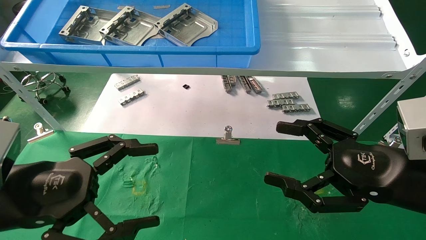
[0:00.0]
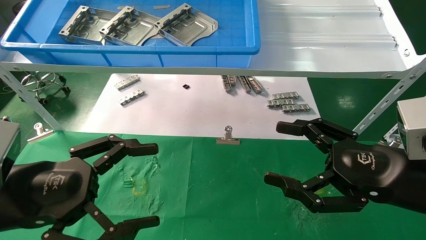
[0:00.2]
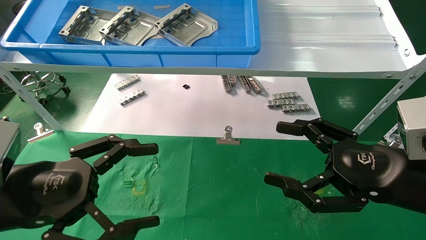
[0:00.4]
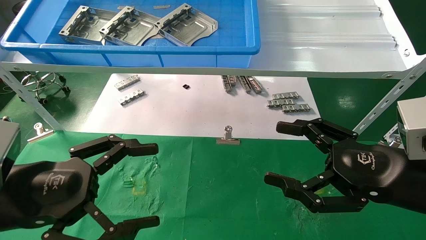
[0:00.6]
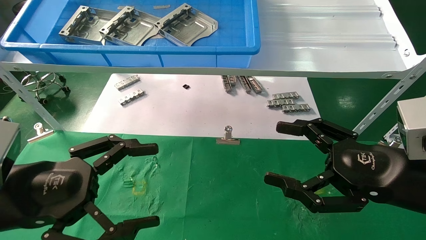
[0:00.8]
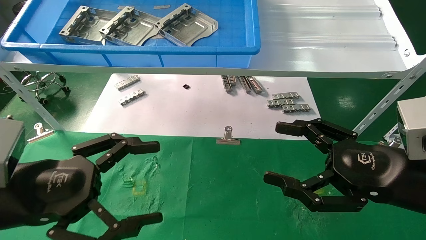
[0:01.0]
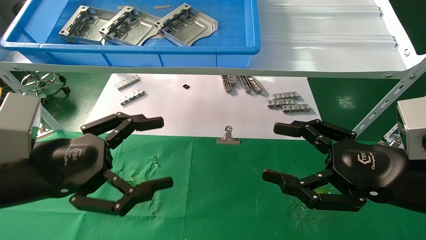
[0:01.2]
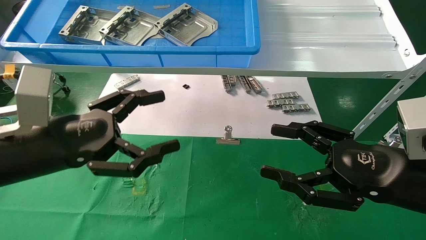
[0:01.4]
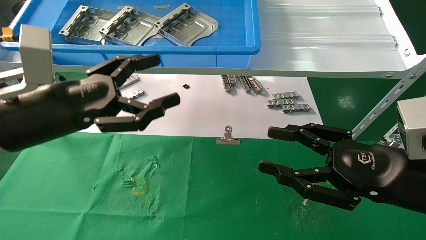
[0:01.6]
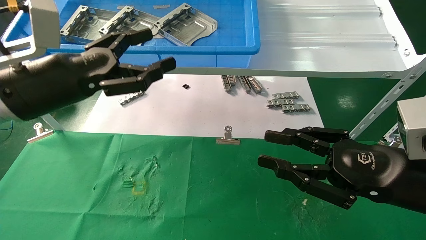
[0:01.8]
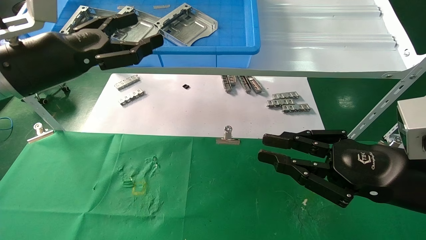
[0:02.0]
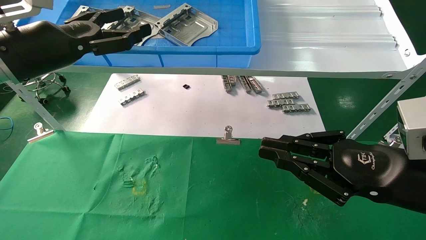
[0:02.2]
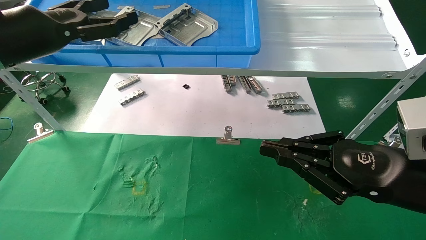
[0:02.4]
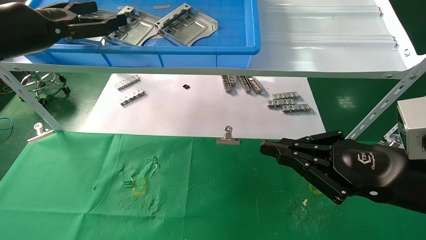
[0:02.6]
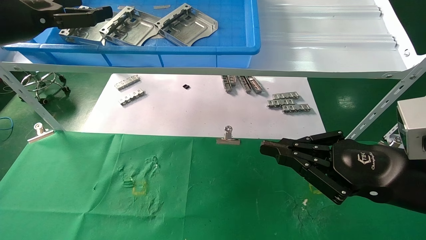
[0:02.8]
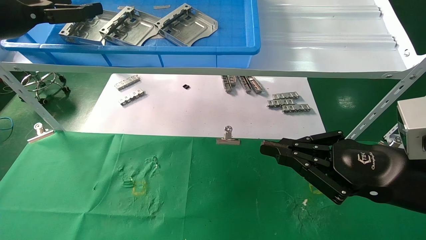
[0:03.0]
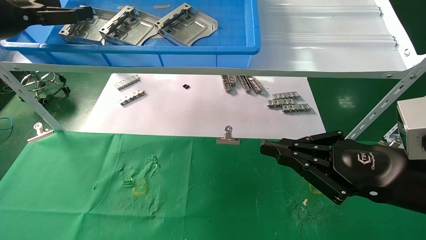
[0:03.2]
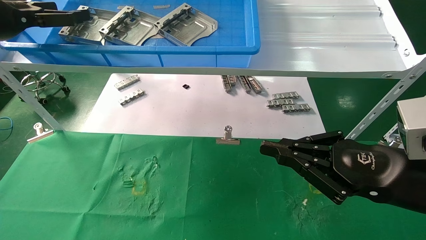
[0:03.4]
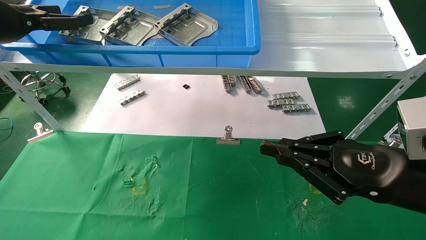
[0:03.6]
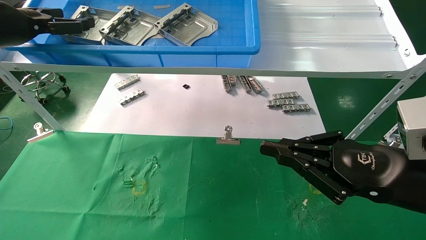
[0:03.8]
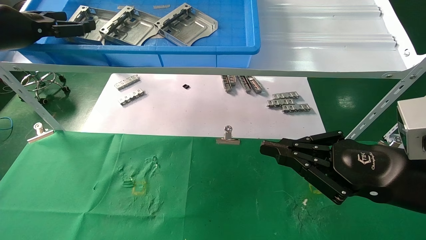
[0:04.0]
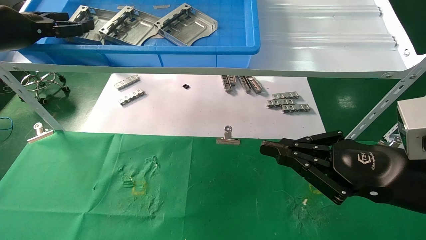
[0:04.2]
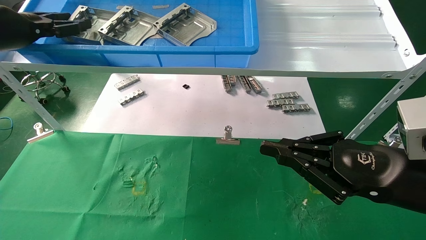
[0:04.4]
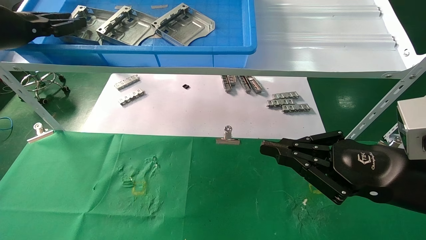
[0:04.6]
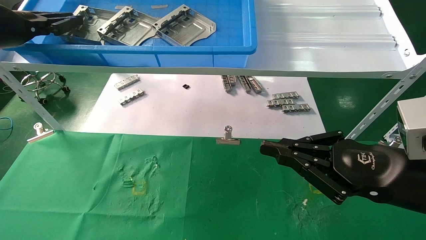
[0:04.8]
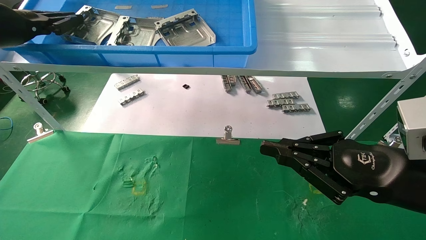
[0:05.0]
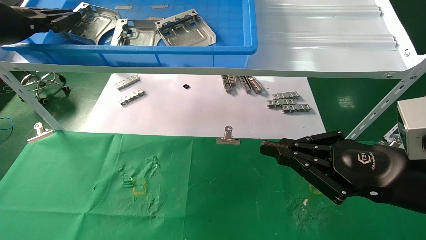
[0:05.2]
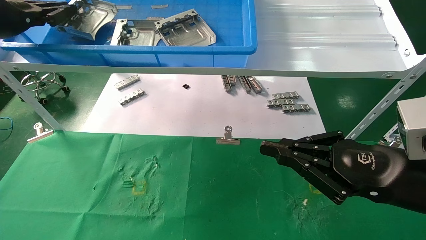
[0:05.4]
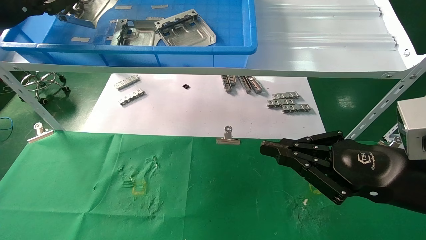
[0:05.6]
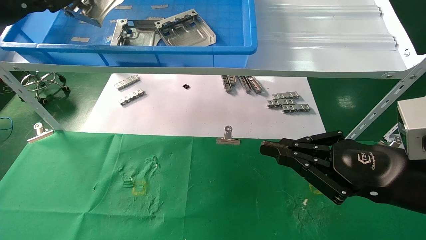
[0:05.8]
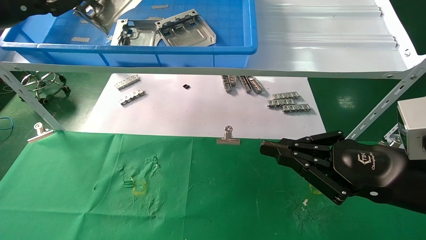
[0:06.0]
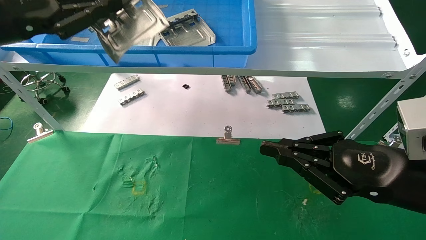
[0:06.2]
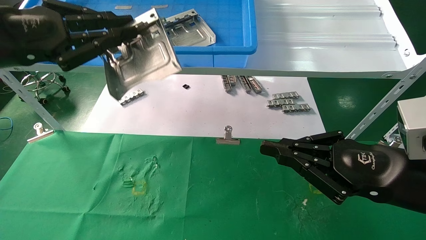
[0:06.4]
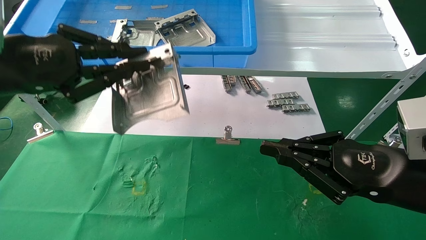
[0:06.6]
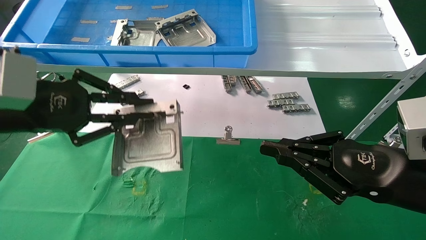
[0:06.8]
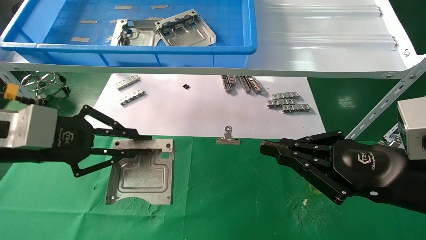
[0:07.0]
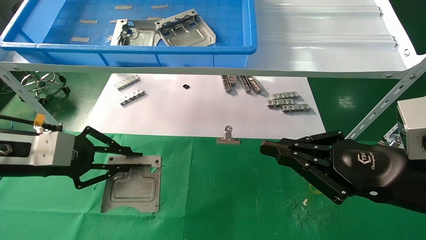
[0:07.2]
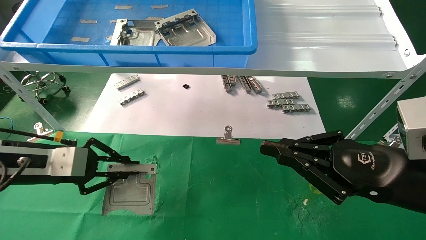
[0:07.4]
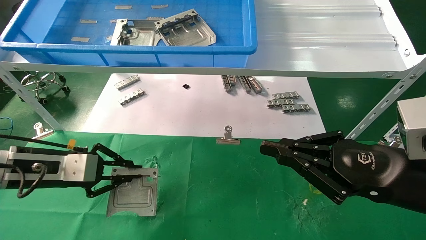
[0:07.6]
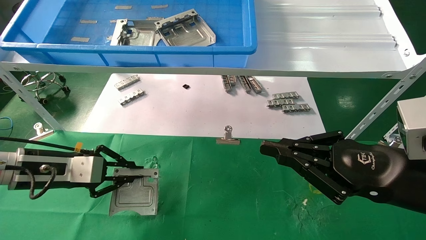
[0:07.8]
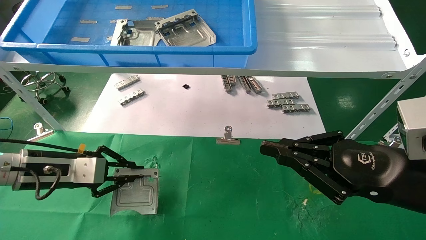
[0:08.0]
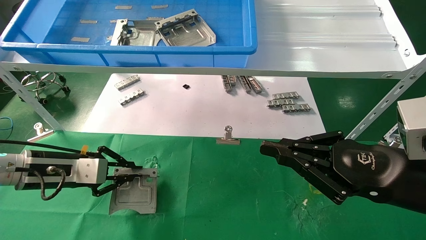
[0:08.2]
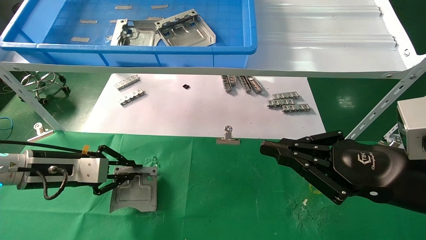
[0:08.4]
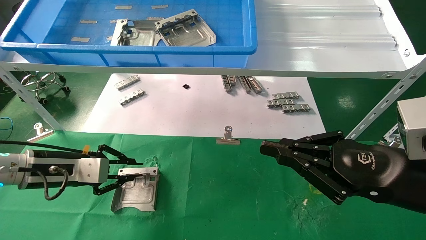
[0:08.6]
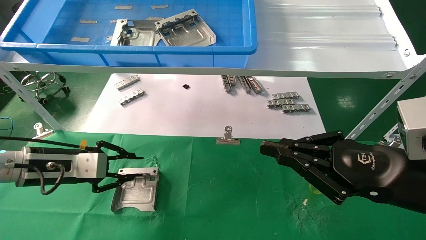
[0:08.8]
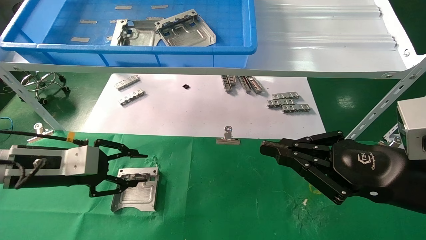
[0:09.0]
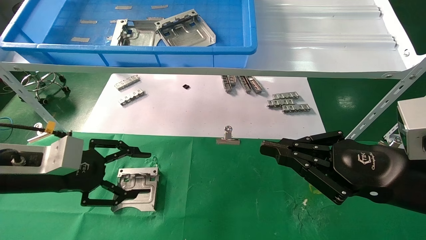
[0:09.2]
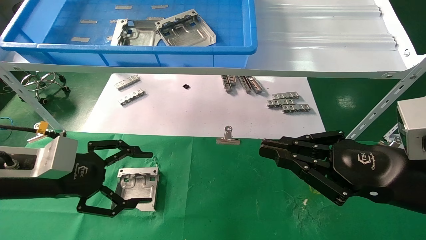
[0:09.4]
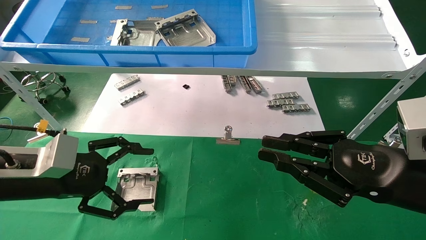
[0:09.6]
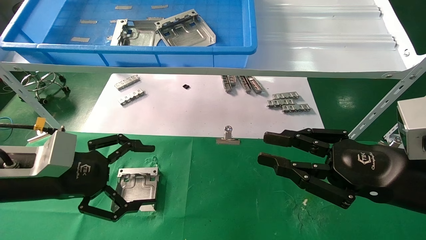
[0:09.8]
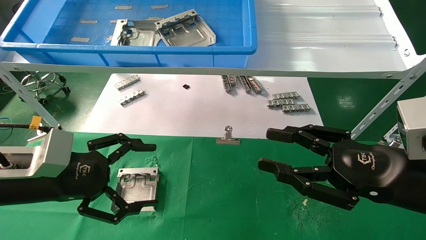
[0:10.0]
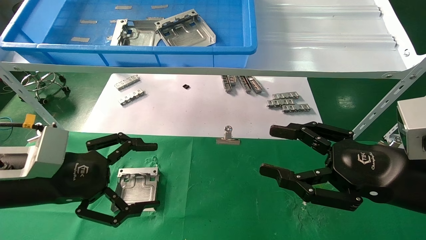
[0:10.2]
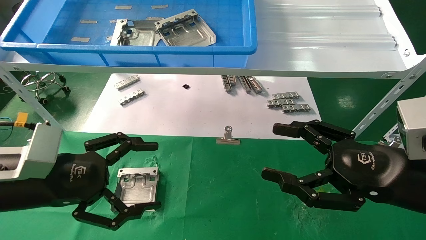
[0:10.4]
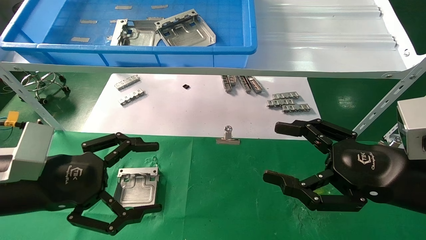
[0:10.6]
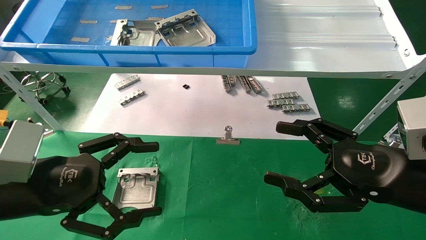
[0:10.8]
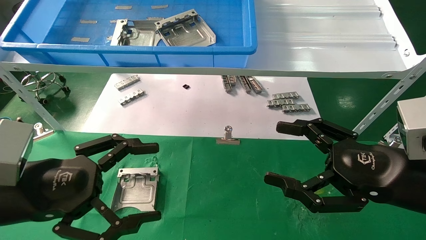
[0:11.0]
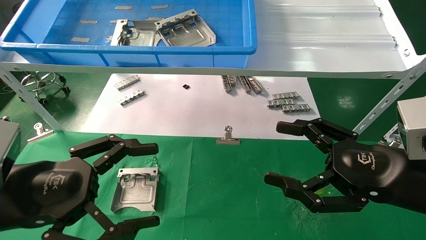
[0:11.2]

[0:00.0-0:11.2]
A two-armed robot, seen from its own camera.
Task of the whole recording: use the mechanical arm to pick up the parts and place them on the table.
Step, 0:01.2 to 0:05.0: Pick up the hard drive bracket from the feeding area.
Step, 0:05.2 to 0:08.8: Place the hard drive bracket into the box.
0:00.0 to 0:01.6: The left gripper is displaced forward and upward by some 10 cm.
0:01.6 to 0:03.2: The left gripper travels upward, to the left and forward by roughly 20 cm, while the right gripper closes up.
0:03.2 to 0:04.8: The left gripper closes.
0:04.8 to 0:06.4: The left gripper travels backward and to the right by roughly 15 cm.
0:06.4 to 0:08.0: The left gripper moves downward, some 20 cm.
0:08.0 to 0:09.6: The left gripper is displaced backward by about 5 cm, and opens.
0:09.6 to 0:11.2: The left gripper travels backward by approximately 10 cm. Meanwhile the right gripper opens its fingers.

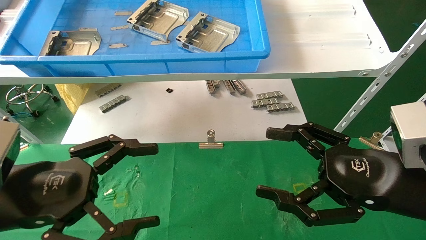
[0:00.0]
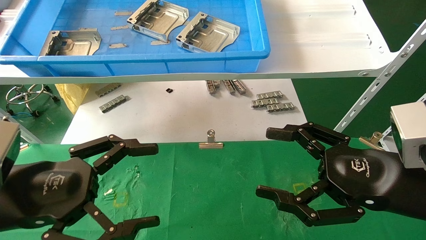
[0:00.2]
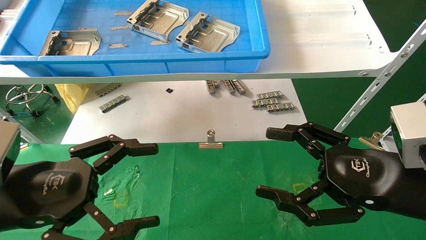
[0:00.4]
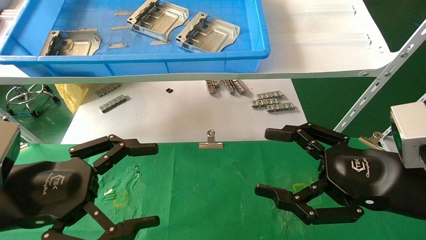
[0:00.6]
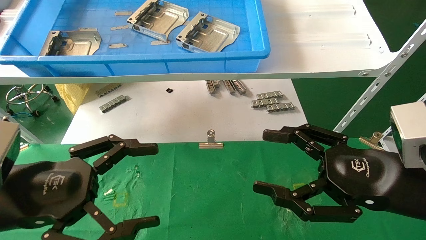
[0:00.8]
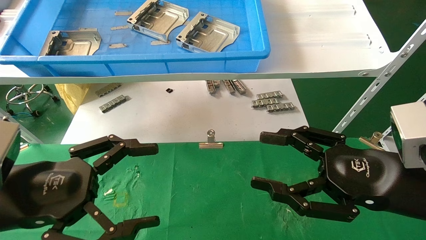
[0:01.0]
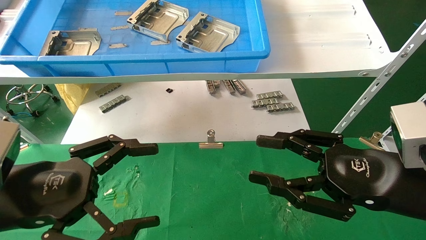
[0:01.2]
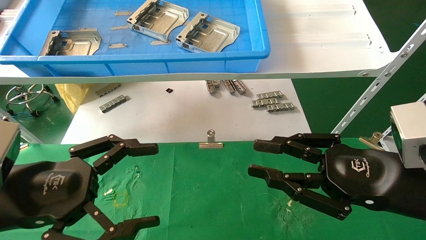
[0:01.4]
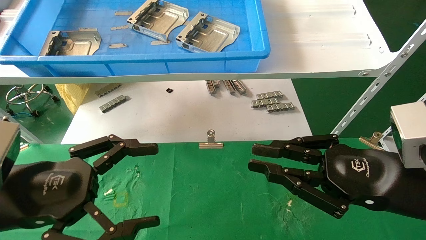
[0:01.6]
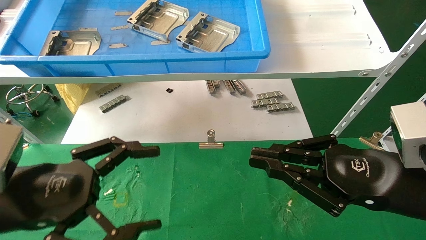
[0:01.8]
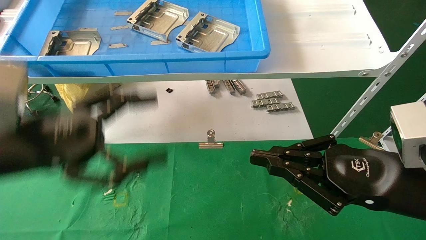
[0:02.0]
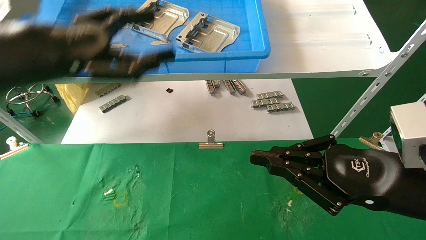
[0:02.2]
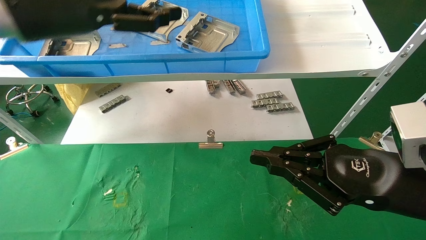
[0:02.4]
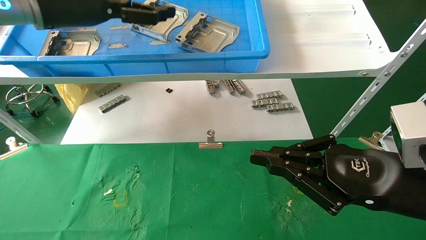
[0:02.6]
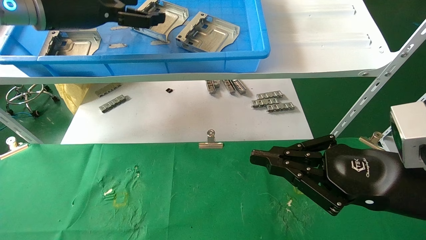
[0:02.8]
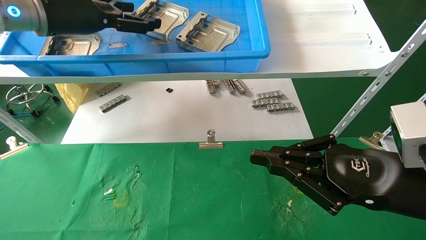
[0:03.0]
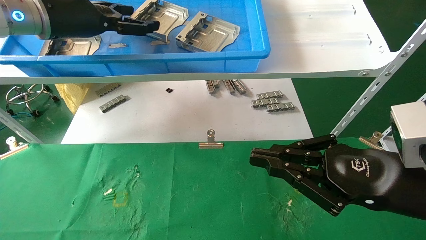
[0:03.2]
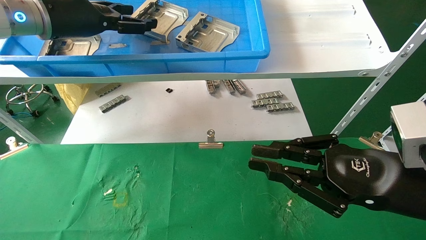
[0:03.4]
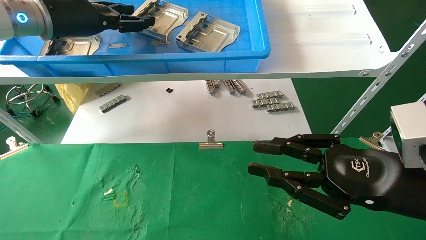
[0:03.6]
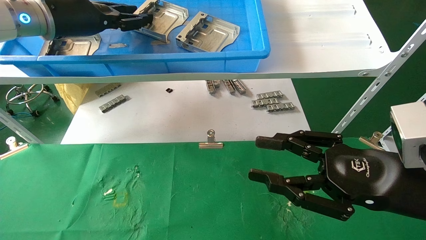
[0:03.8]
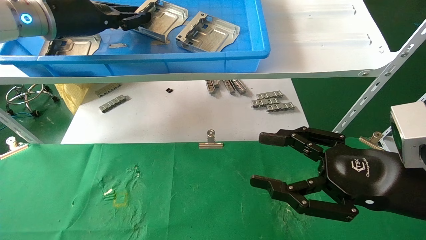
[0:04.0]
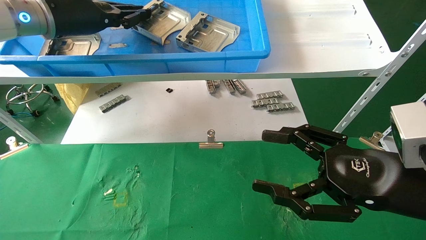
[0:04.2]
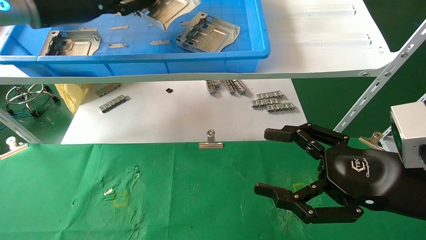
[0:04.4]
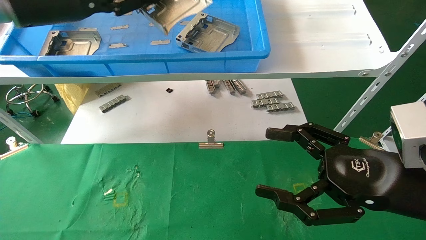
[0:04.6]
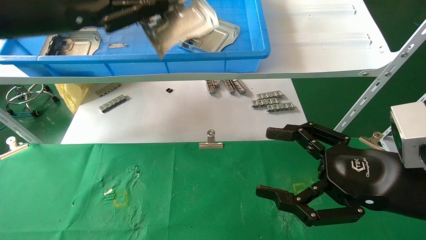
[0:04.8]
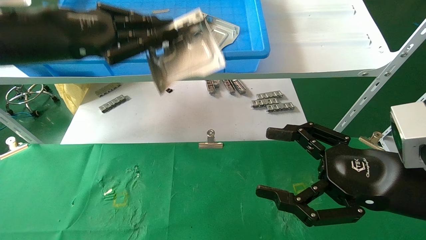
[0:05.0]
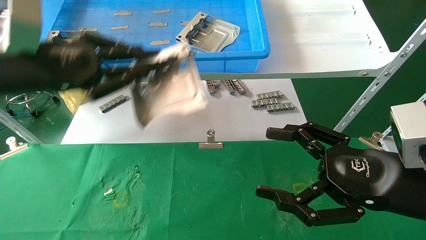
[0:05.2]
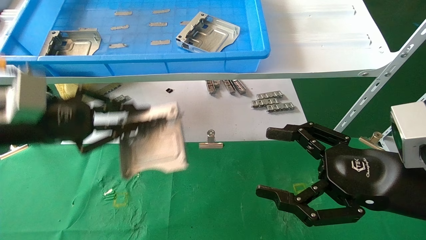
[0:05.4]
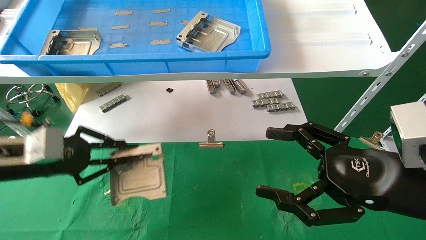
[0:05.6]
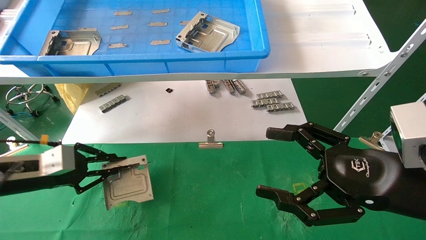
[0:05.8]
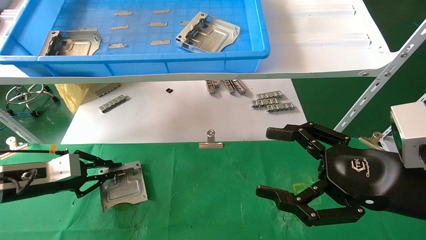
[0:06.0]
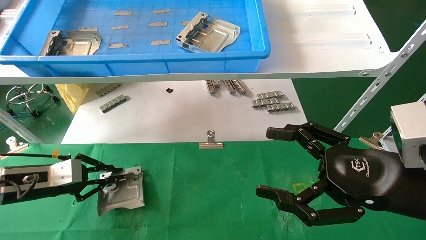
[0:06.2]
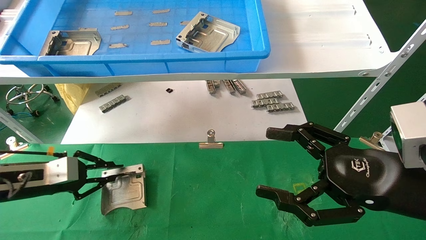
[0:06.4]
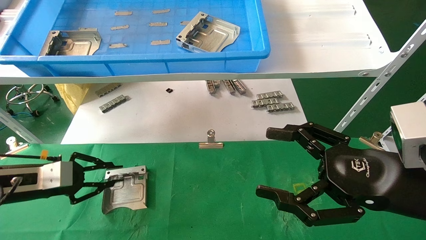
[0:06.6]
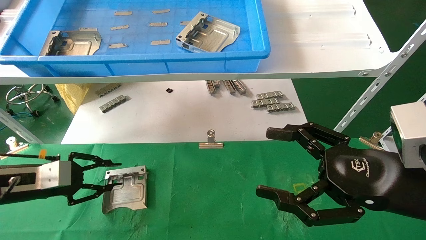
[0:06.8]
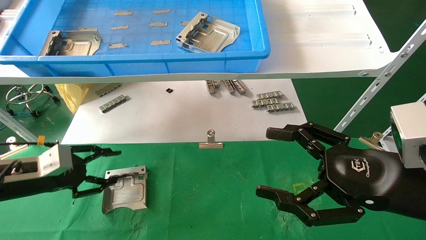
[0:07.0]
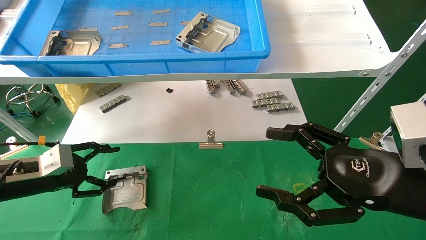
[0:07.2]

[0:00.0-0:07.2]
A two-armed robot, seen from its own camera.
Task of the whole recording: use the mechanical arm to pick up the parts and place them on the table.
Step, 0:02.2 to 0:04.2: Pick up the hard drive bracket from the feeding area.
Step, 0:04.4 to 0:06.6: Place the hard drive bracket into the box.
0:00.0 to 0:01.4: The right gripper closes.
0:01.4 to 0:02.8: The right gripper closes its fingers, while the left gripper heads upward and forward, covering approximately 30 cm.
0:02.8 to 0:04.4: The left gripper closes up. Meanwhile the right gripper opens its fingers.
0:04.4 to 0:05.8: The left gripper goes about 25 cm downward.
0:05.8 to 0:07.2: The left gripper opens up.
